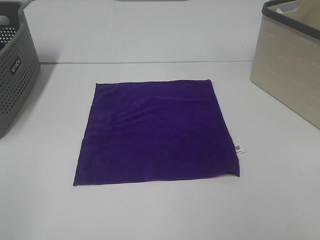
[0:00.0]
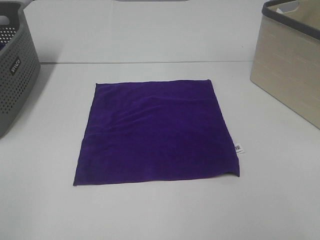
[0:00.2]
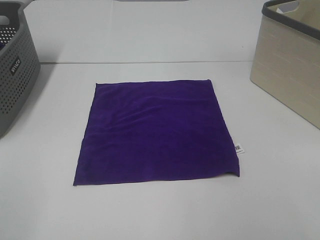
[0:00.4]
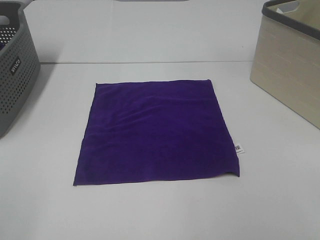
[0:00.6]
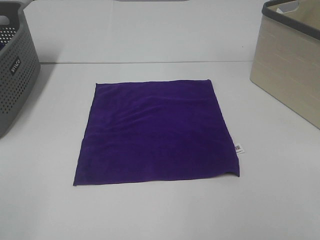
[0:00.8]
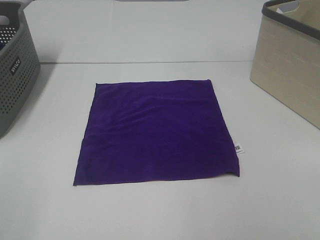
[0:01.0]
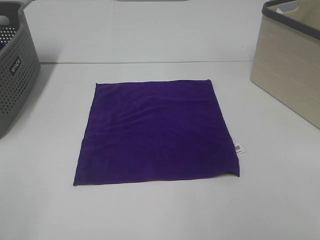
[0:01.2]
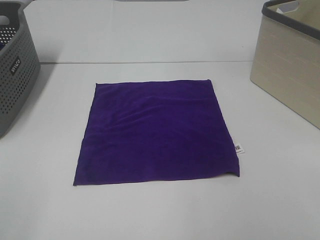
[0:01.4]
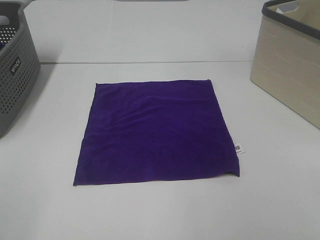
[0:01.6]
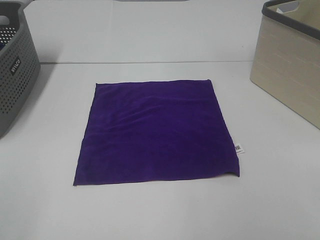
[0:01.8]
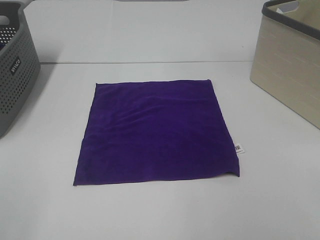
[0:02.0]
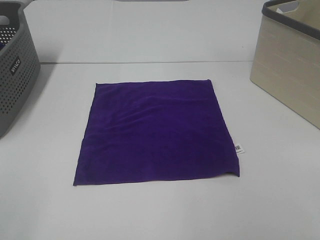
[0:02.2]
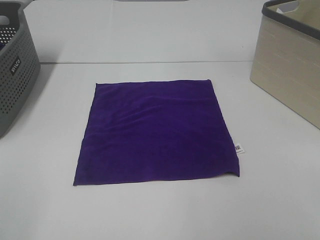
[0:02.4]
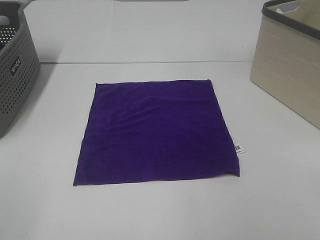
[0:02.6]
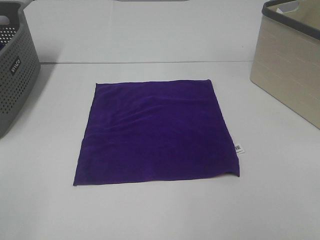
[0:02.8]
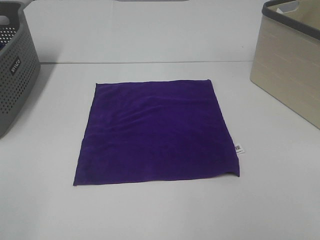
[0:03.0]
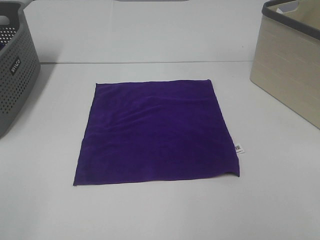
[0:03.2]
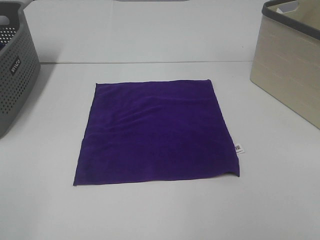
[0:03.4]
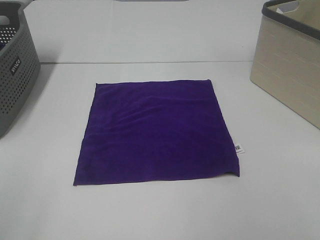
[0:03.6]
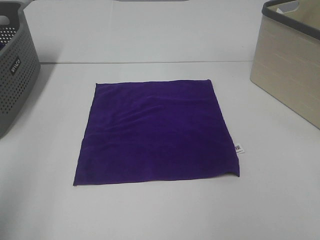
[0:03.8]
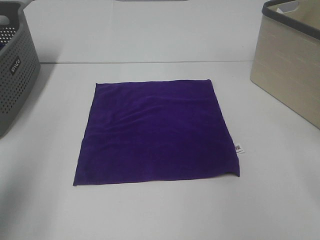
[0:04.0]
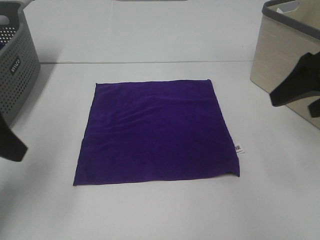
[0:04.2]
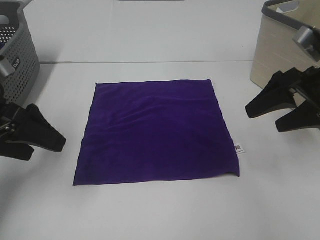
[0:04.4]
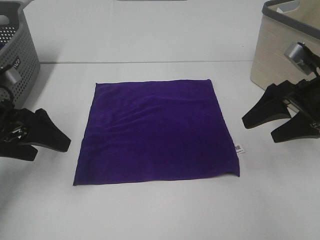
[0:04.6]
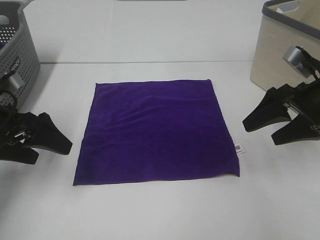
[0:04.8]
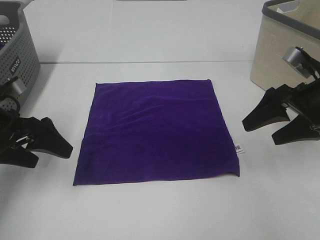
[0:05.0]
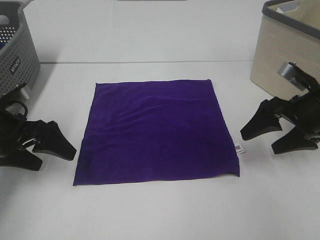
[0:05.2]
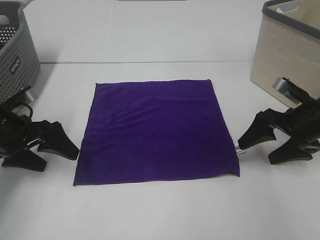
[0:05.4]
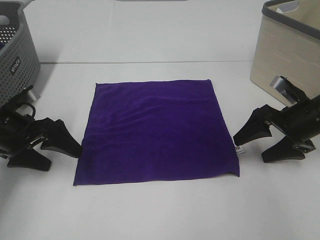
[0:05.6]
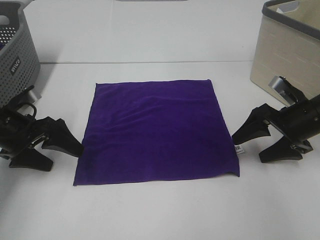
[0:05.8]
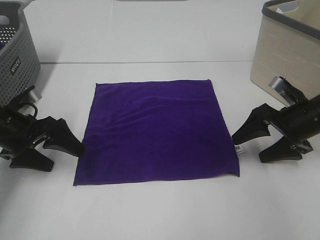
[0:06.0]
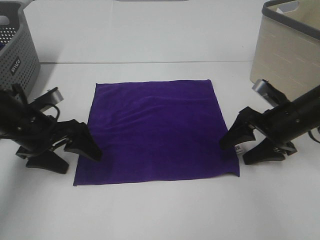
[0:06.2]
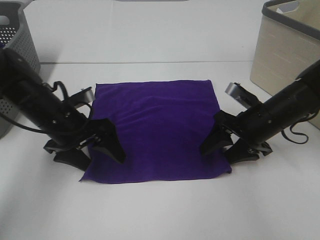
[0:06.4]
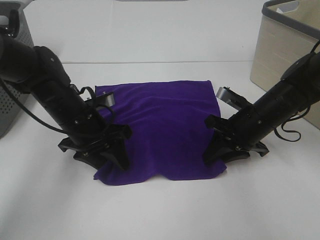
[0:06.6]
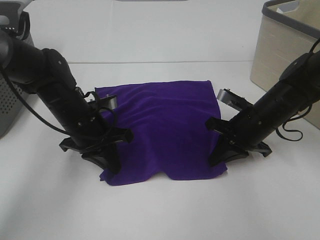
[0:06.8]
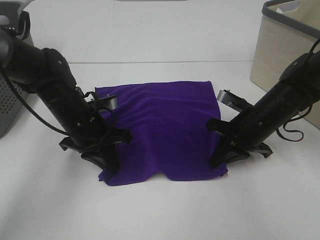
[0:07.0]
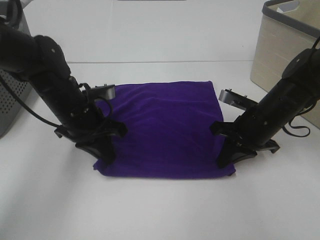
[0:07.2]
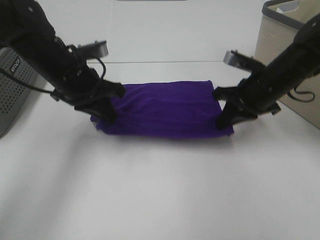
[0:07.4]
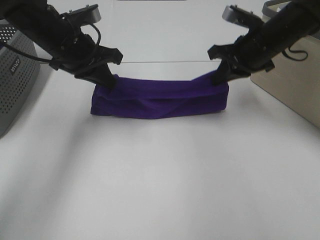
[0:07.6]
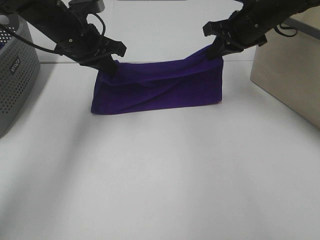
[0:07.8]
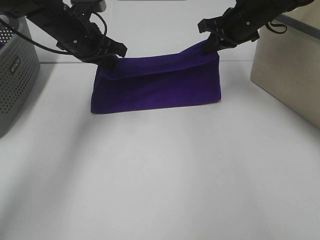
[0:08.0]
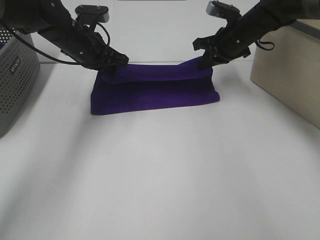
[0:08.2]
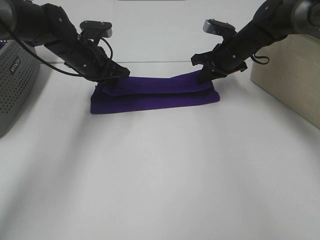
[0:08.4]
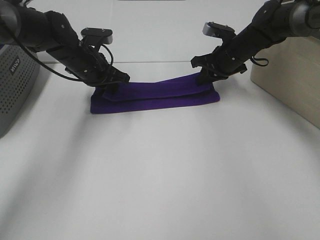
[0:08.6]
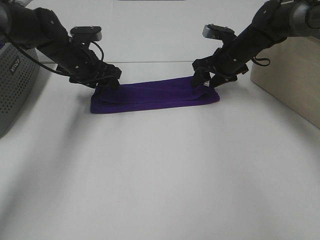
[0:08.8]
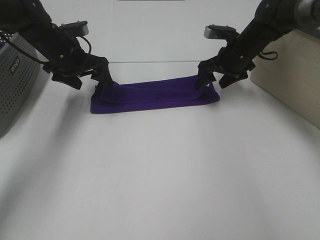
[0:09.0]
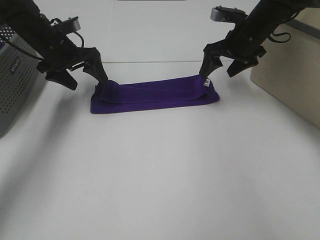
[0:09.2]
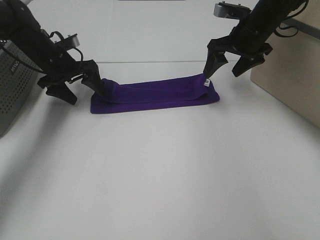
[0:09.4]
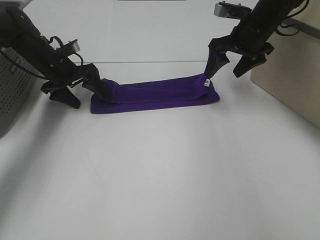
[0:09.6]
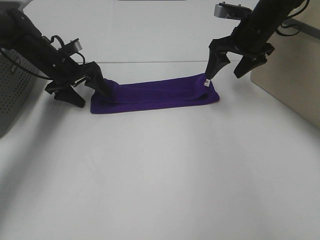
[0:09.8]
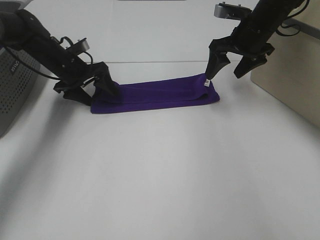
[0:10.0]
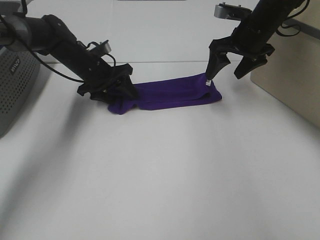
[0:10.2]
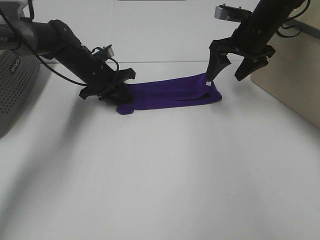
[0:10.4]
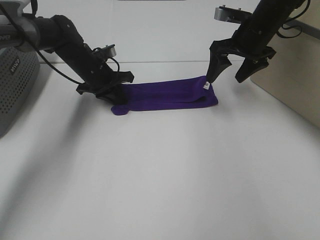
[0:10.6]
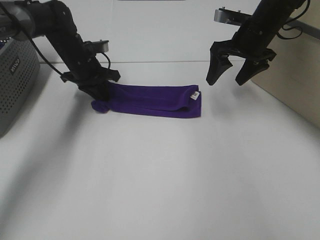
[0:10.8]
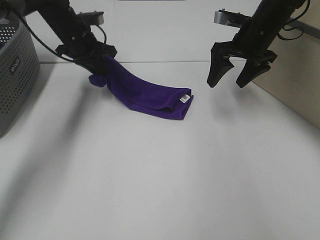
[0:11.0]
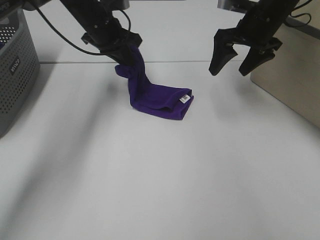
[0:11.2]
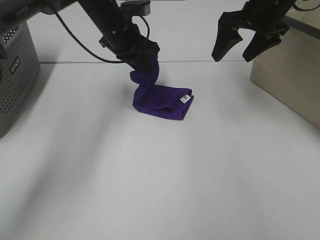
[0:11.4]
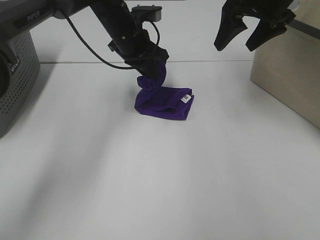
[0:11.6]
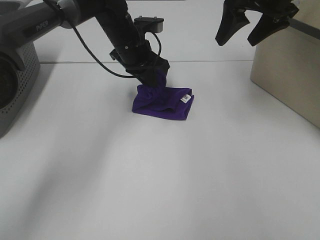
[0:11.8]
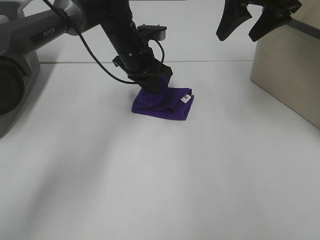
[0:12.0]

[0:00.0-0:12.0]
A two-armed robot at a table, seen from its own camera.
Task of the whole recording: Fold towels.
Step, 0:00.0 to 0:07.0: Left hand: grab the bottom left corner of purple towel.
Step, 0:00.0 to 0:07.0: Right hand: grab the bottom right corner of purple towel.
Step, 0:07.2 to 0:08.6: Left hand: fold the purple towel up.
Step, 0:07.2 to 0:08.6: Right hand: fold the purple towel up.
Step, 0:08.8 to 0:12.0: Left hand: fold the purple towel from left to right.
0:00.0 to 0:03.0: Both grippers stay about where they are.
0:03.0 to 0:04.4: Both grippers travel together forward, about 30 cm.
0:04.4 to 0:06.0: The two grippers go roughly 10 cm downward.
0:06.0 to 0:07.6: The right gripper heads upward, forward and to the left, covering some 15 cm, and closes up. Meanwhile the left gripper heads upward, to the right and forward, covering roughly 20 cm, and closes.
0:07.6 to 0:09.0: The grippers both shift forward and downward by about 10 cm. The left gripper opens its fingers. Meanwhile the right gripper opens its fingers.
0:09.0 to 0:10.4: The right gripper goes approximately 5 cm upward, while the left gripper shifts roughly 5 cm downward, and closes.
0:10.4 to 0:12.0: The right gripper shifts approximately 10 cm upward. The left gripper goes about 15 cm to the right and upward.

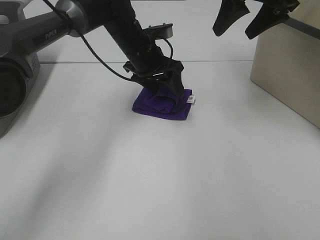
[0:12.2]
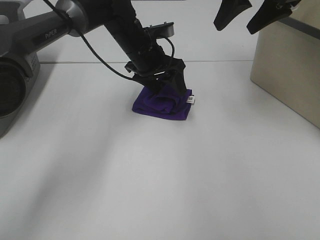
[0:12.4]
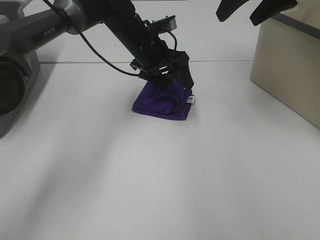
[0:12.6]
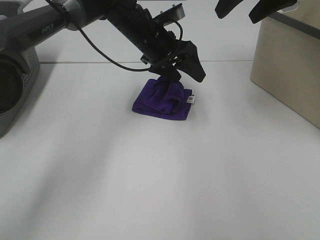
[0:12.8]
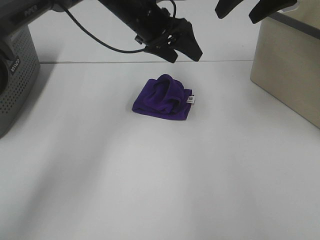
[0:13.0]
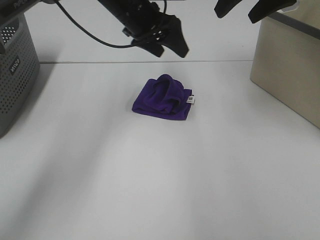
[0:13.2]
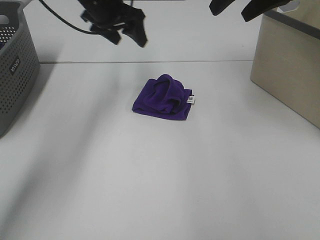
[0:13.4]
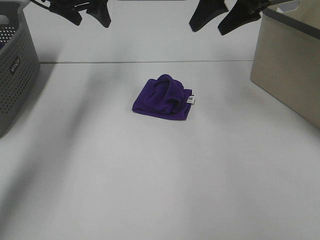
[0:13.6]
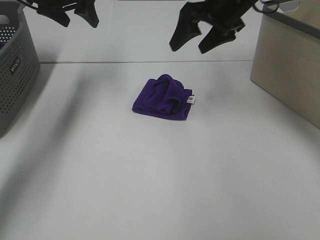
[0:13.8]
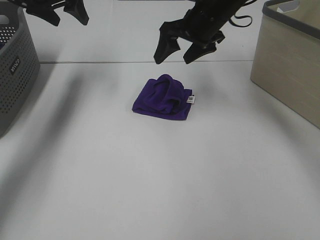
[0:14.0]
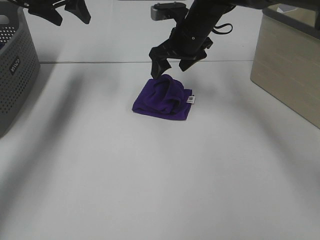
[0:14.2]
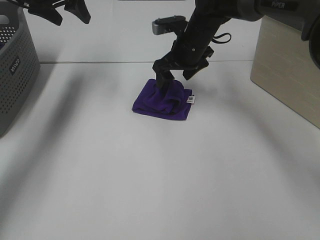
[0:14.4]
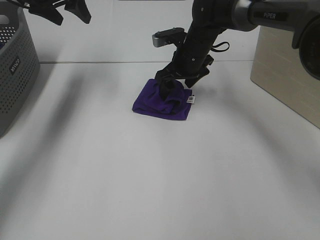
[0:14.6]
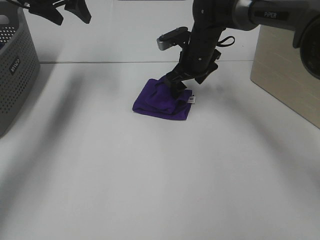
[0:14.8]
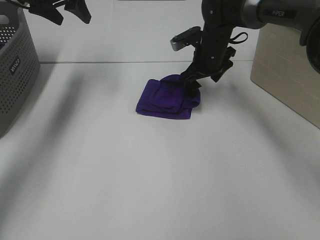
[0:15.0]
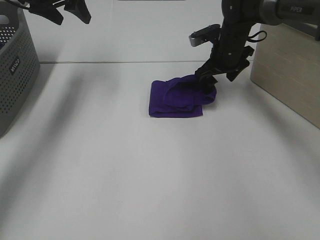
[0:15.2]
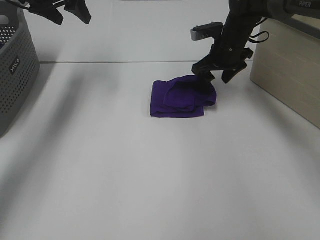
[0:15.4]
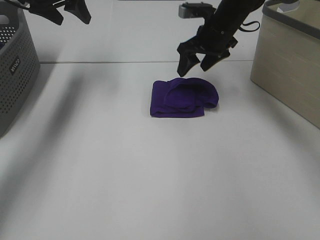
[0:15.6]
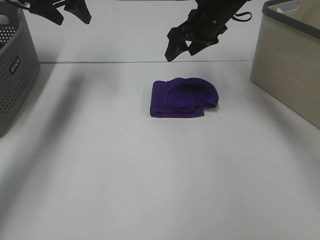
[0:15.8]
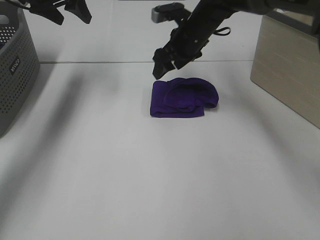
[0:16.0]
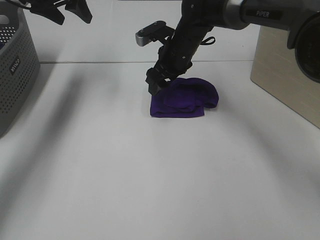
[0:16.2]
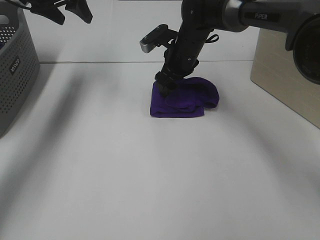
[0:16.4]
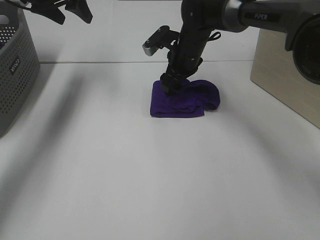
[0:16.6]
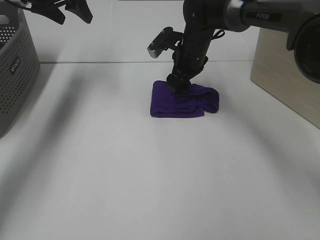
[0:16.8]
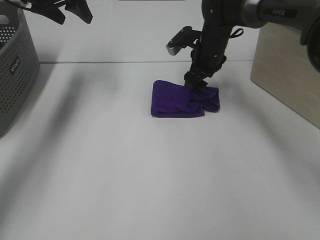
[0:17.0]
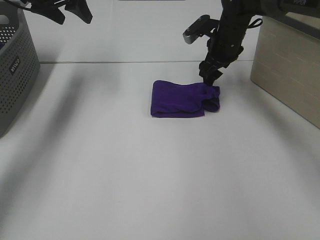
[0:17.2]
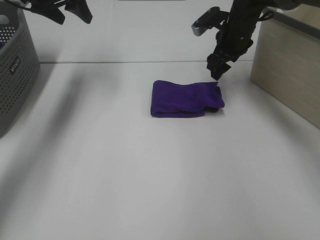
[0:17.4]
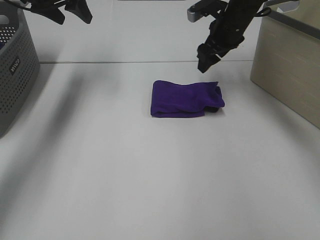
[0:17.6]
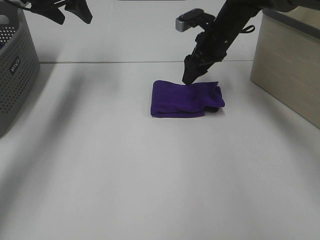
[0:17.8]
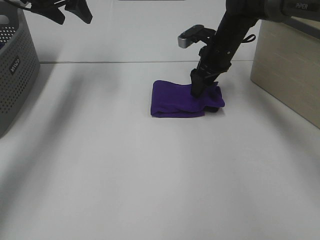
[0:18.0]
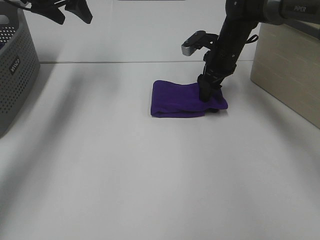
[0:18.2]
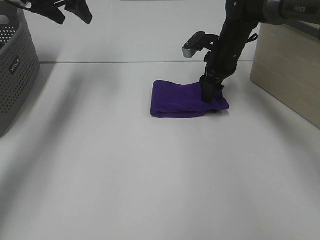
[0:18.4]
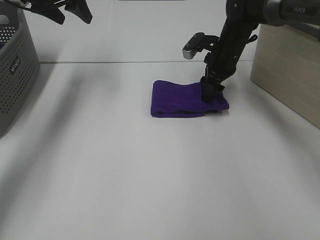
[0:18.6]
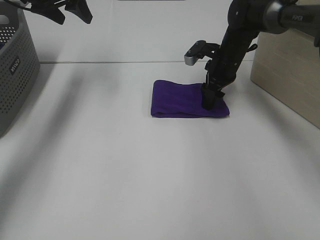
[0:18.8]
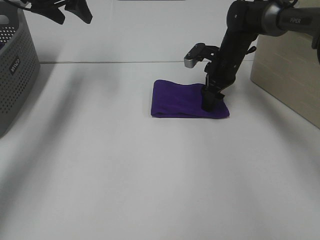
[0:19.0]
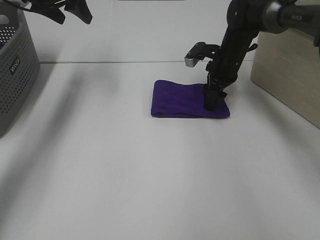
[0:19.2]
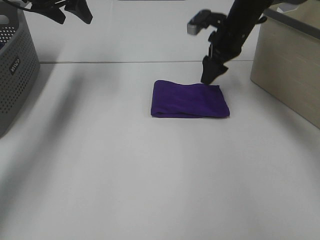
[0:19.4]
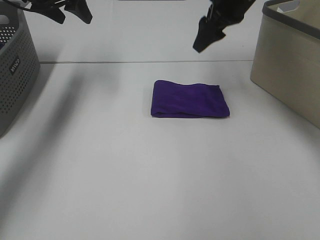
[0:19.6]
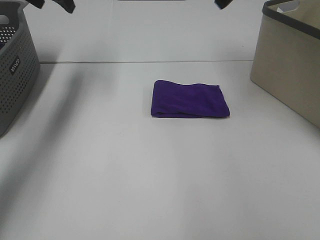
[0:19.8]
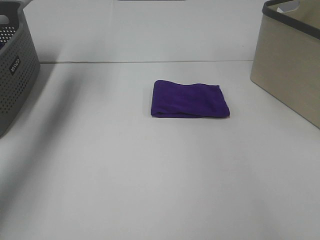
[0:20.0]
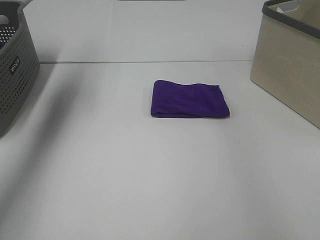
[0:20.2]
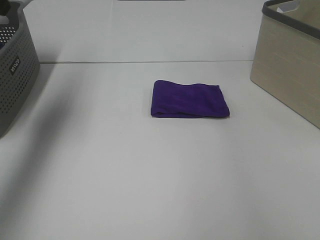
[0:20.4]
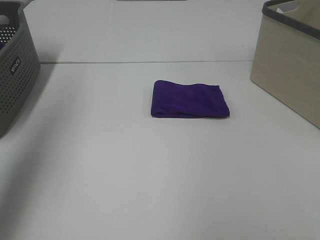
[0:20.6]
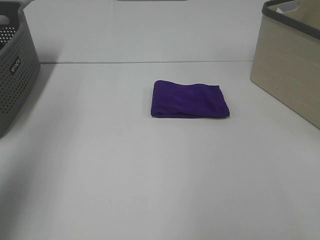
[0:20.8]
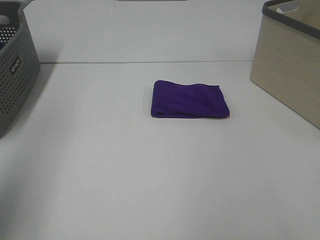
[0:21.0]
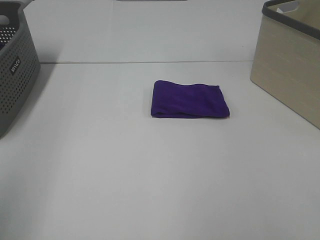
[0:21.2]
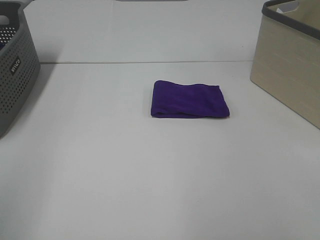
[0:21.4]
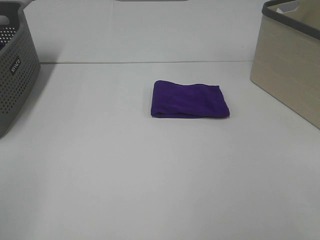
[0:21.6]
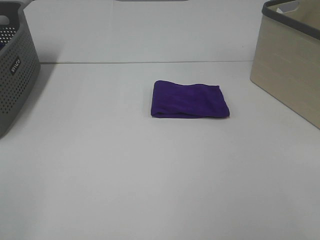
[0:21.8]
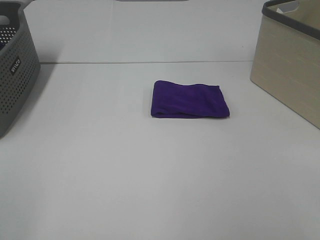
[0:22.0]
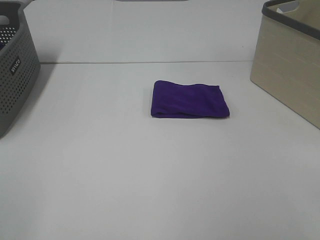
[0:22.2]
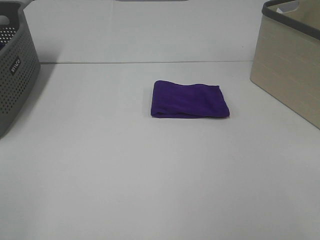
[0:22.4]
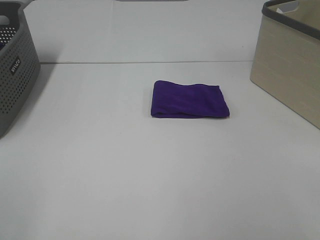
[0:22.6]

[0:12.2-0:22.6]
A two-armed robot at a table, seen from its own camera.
Task of the whole recording: Fold towels.
Step, 0:12.2 to 0:19.2: Right hand: adjust the purple towel.
0:12.2 to 0:13.6: The left gripper goes some 20 cm to the left and upward.
0:13.6 to 0:15.2: The right gripper goes about 15 cm downward and forward.
0:15.2 to 0:16.6: The right gripper is displaced to the left by approximately 10 cm.
0:16.6 to 0:18.2: The right gripper shifts roughly 10 cm to the right.
0:18.2 to 0:19.6: The right gripper is displaced upward by roughly 15 cm.
0:19.6 to 0:21.2: The two grippers go some 40 cm backward.
